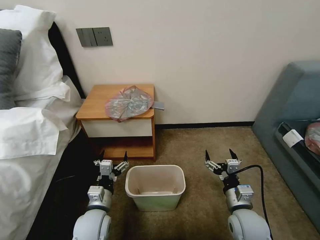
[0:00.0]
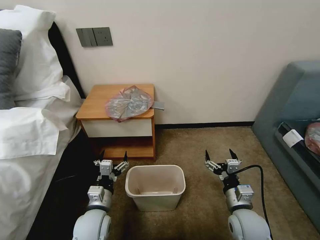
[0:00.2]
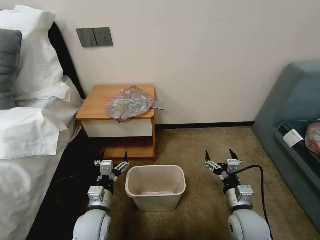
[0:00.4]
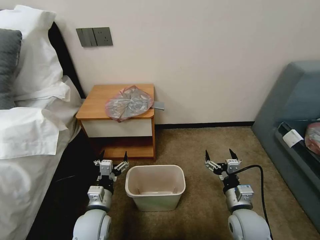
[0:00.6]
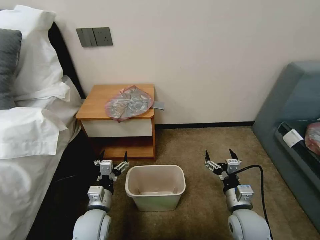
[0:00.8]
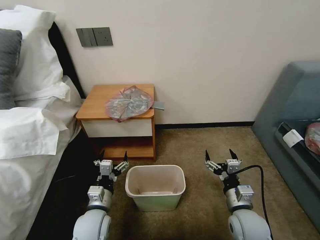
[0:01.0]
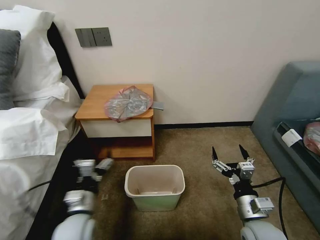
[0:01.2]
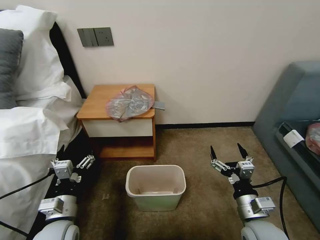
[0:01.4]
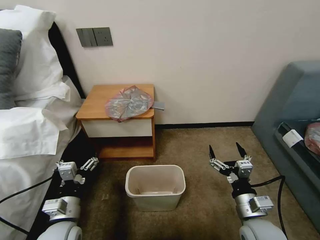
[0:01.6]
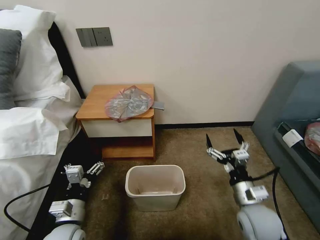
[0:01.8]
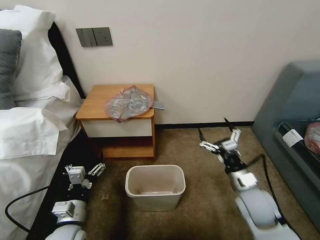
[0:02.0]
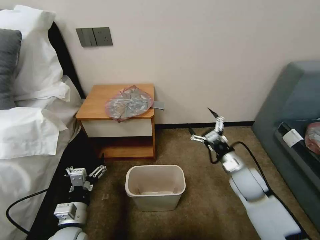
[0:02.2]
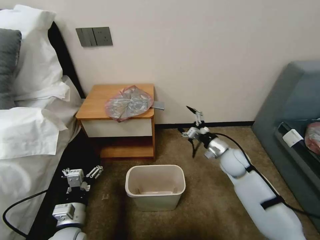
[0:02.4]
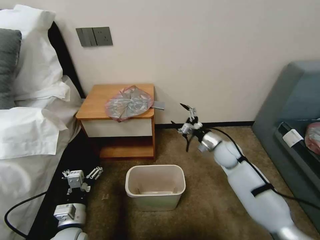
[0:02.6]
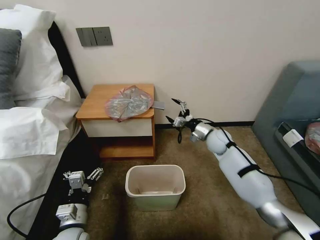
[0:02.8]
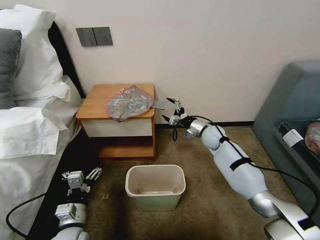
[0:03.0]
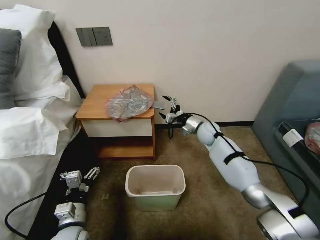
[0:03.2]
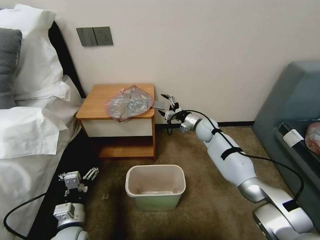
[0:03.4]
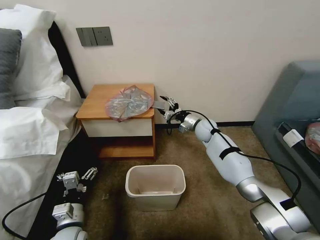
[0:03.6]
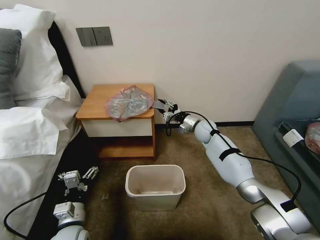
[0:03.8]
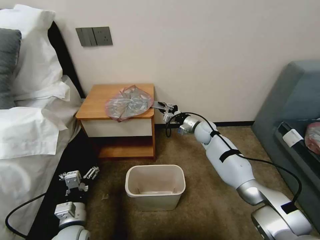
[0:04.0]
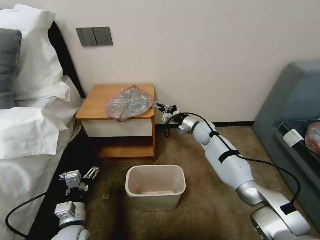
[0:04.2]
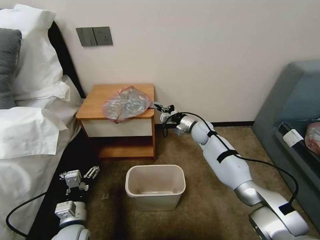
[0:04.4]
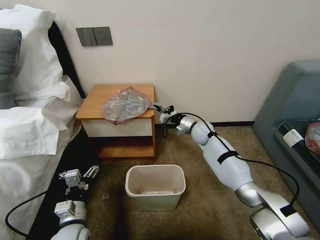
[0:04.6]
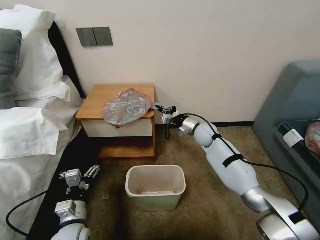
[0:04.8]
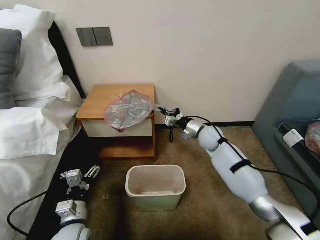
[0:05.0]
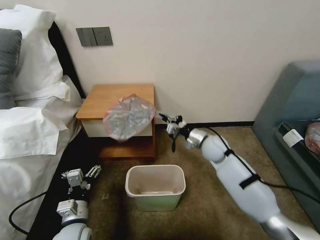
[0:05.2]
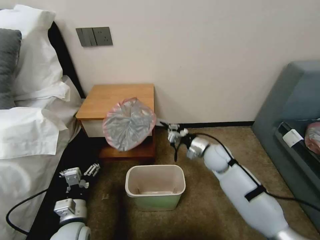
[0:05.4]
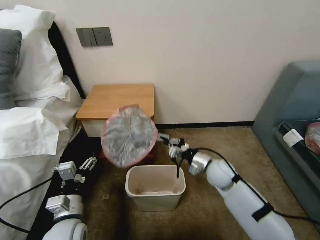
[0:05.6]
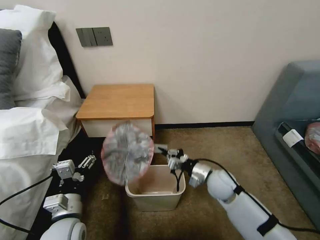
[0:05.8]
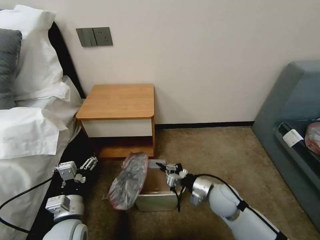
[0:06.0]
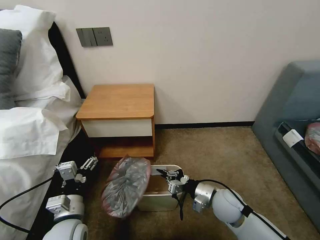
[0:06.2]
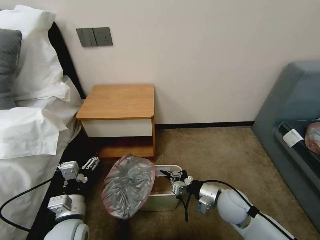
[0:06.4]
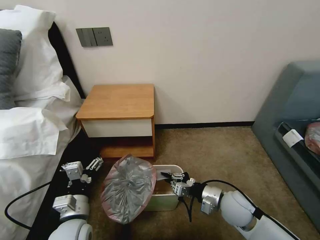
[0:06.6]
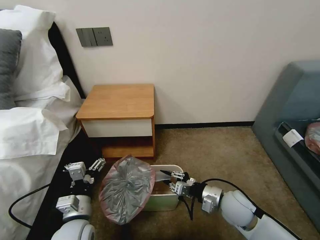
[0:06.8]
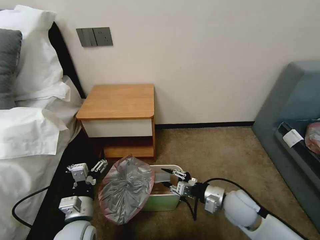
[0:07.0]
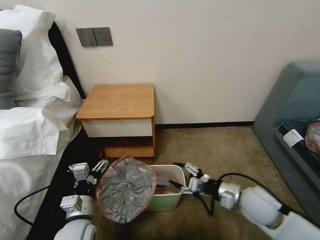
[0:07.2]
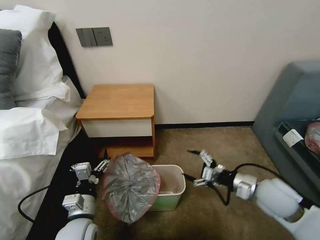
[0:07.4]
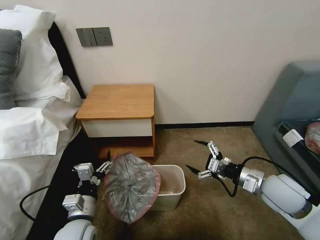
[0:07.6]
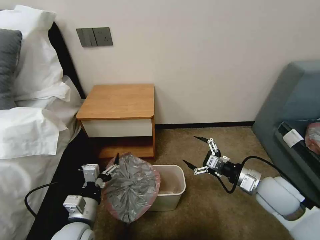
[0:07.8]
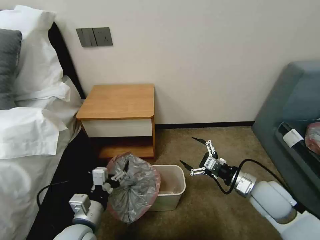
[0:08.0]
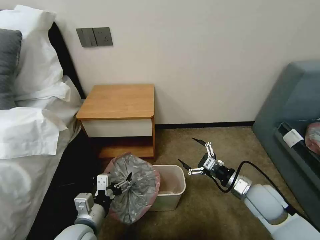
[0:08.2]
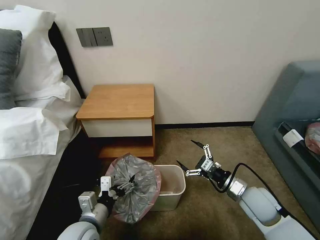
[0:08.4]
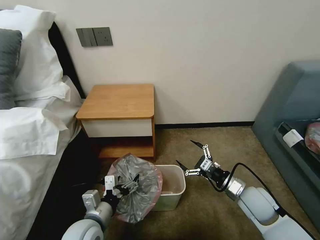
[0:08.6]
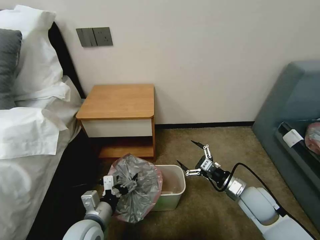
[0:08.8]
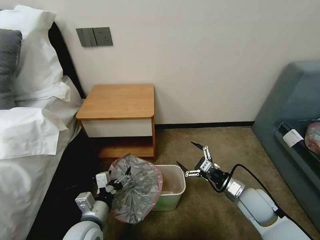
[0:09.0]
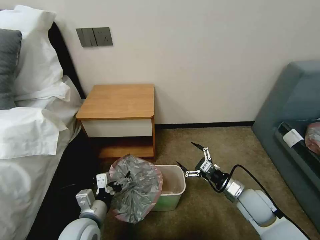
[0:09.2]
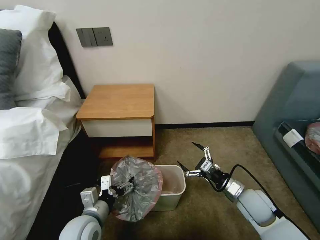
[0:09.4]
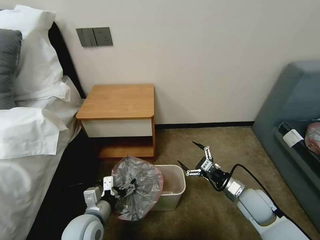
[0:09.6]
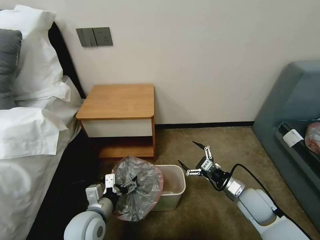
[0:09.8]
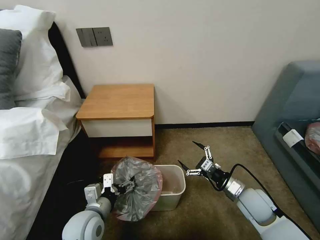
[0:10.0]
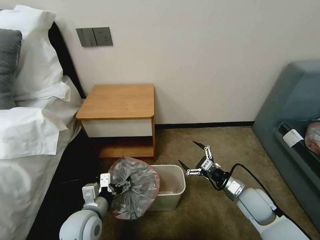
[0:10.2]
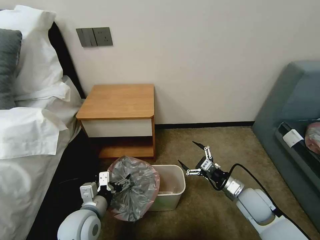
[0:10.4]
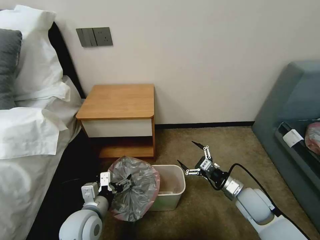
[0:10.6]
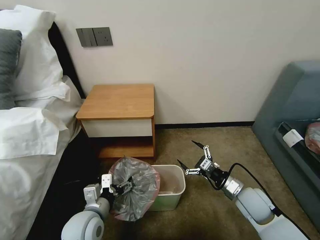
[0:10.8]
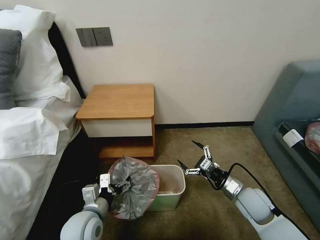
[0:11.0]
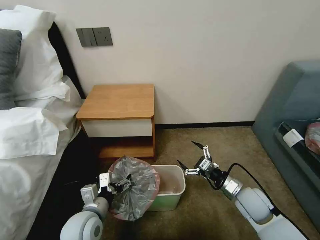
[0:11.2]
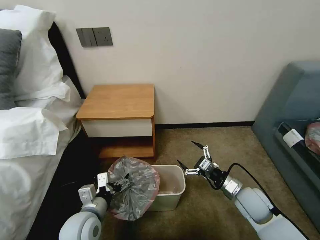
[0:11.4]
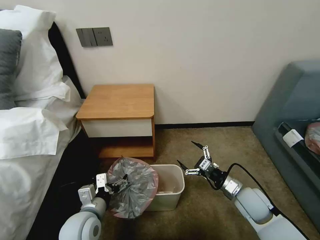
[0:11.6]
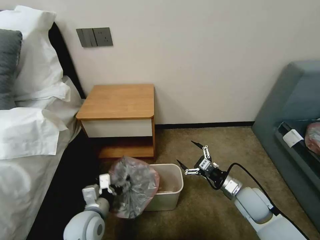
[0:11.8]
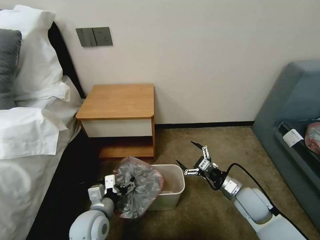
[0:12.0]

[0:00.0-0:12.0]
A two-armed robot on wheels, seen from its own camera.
Task of the whole recording: Pick up the garbage bag from the table and place it over the trash can.
0:01.6 to 0:03.0: The right gripper heads forward, covering approximately 35 cm.
0:03.0 to 0:04.4: The right gripper shifts by roughly 5 cm, and closes its fingers.
0:04.4 to 0:06.0: The right gripper is displaced backward by roughly 25 cm.
0:06.0 to 0:07.6: The right gripper is displaced to the right and upward by some 15 cm, and opens its fingers.
0:07.6 to 0:09.0: The right gripper travels downward by approximately 10 cm.
0:09.0 to 0:12.0: The grippers make only small movements.

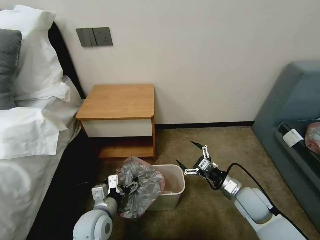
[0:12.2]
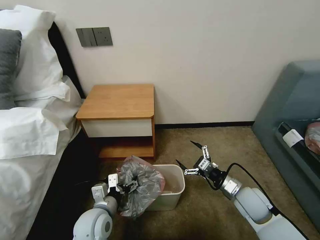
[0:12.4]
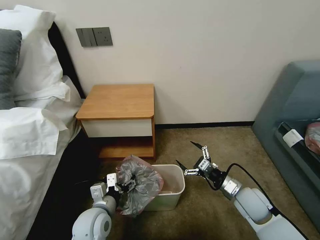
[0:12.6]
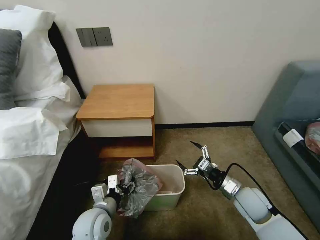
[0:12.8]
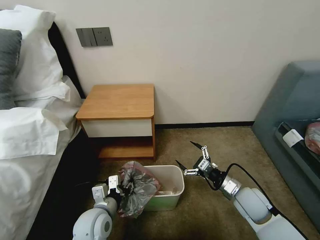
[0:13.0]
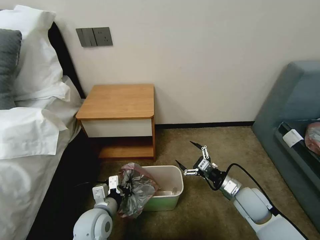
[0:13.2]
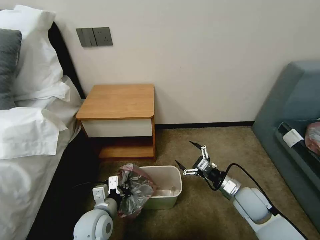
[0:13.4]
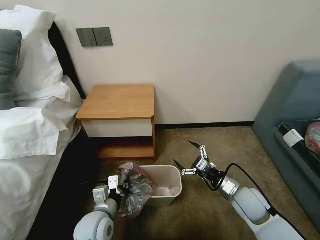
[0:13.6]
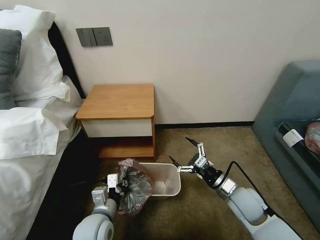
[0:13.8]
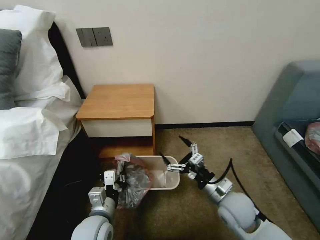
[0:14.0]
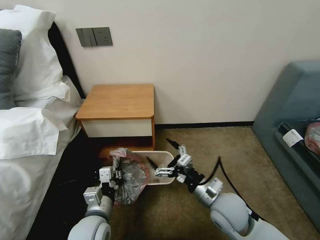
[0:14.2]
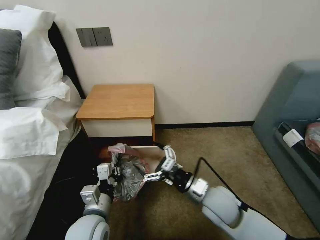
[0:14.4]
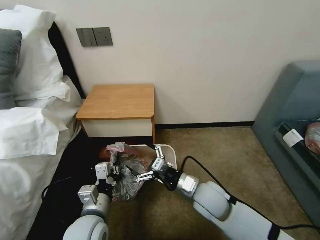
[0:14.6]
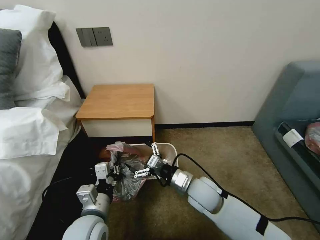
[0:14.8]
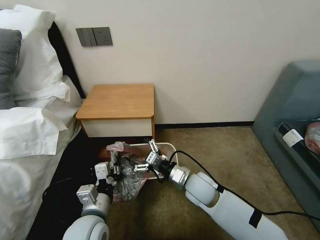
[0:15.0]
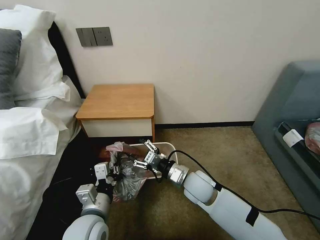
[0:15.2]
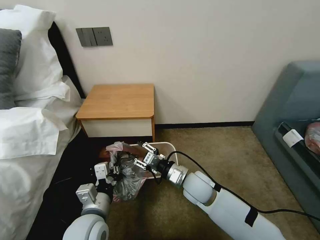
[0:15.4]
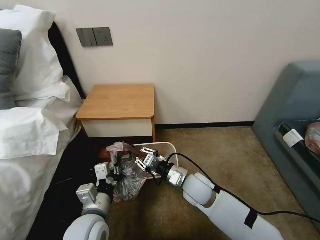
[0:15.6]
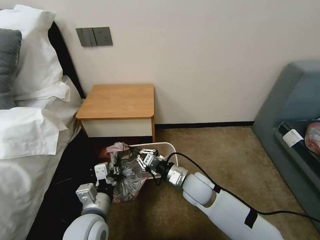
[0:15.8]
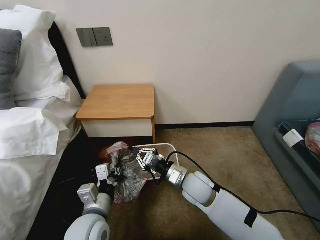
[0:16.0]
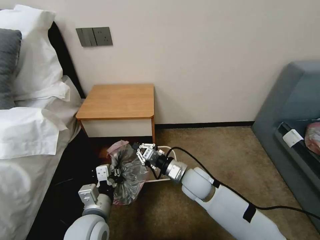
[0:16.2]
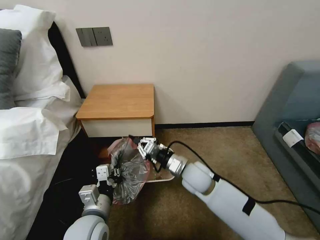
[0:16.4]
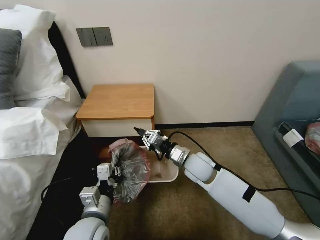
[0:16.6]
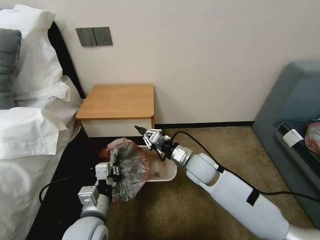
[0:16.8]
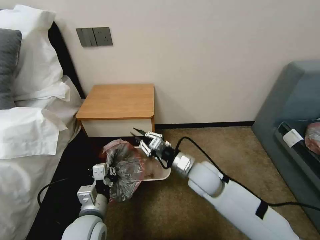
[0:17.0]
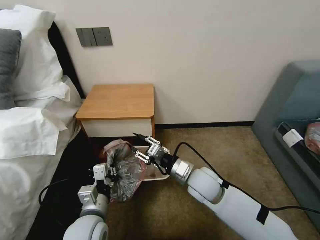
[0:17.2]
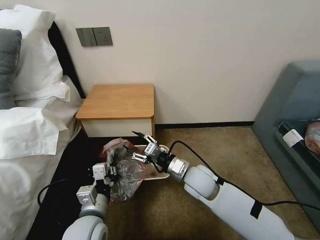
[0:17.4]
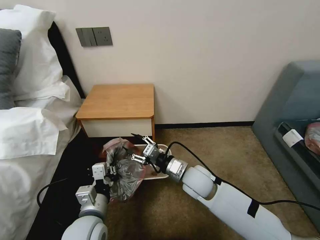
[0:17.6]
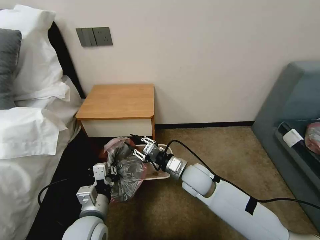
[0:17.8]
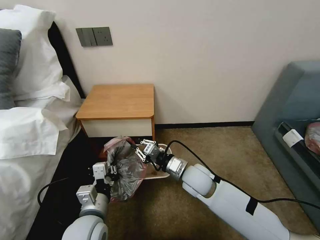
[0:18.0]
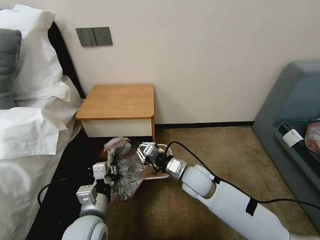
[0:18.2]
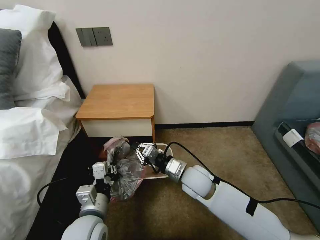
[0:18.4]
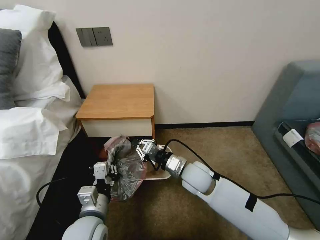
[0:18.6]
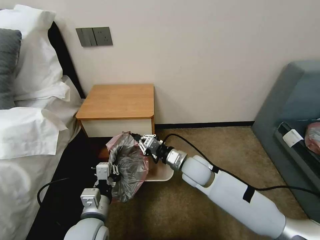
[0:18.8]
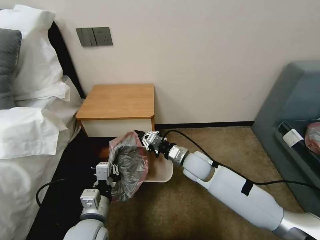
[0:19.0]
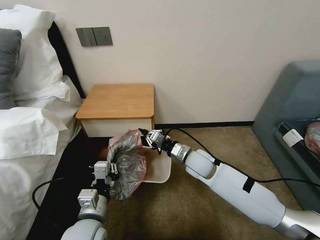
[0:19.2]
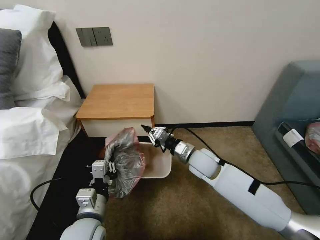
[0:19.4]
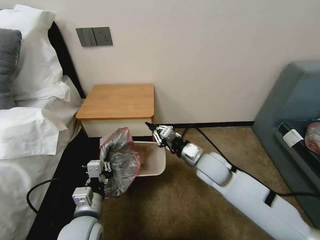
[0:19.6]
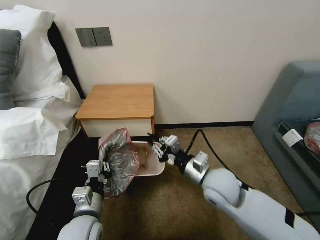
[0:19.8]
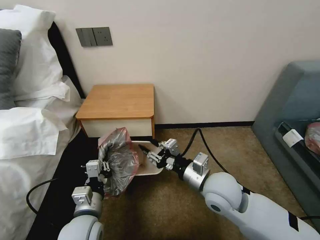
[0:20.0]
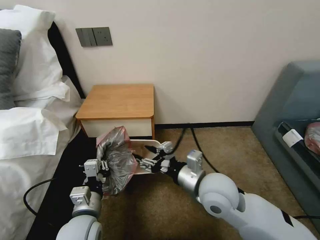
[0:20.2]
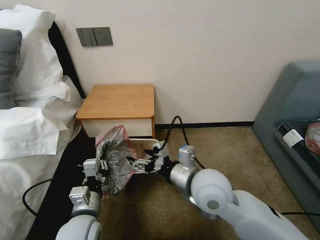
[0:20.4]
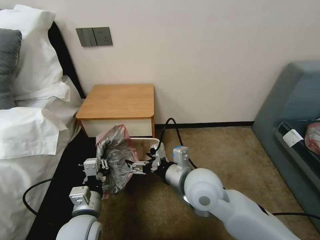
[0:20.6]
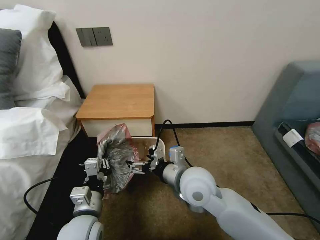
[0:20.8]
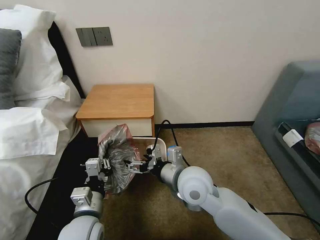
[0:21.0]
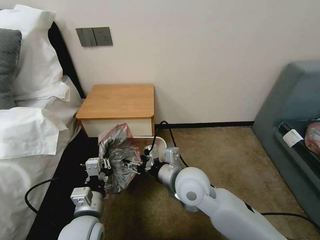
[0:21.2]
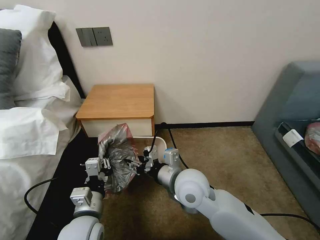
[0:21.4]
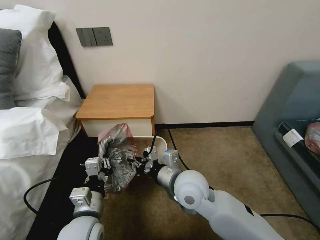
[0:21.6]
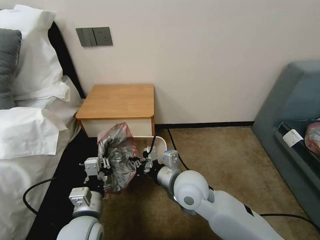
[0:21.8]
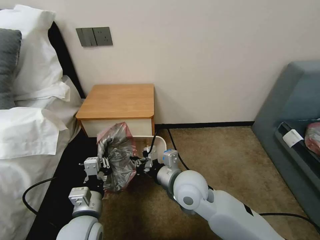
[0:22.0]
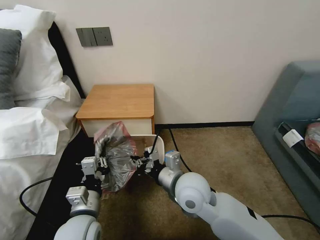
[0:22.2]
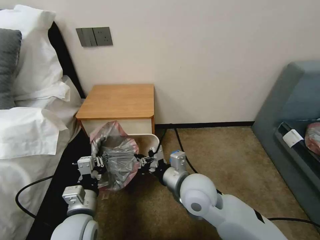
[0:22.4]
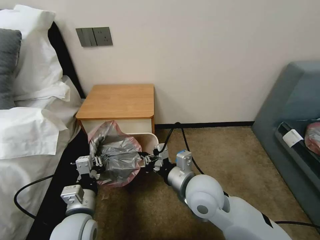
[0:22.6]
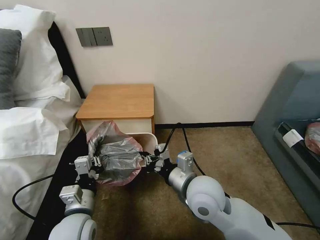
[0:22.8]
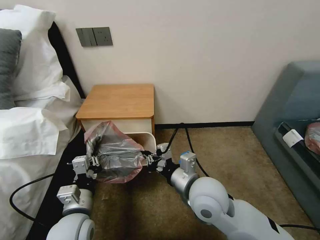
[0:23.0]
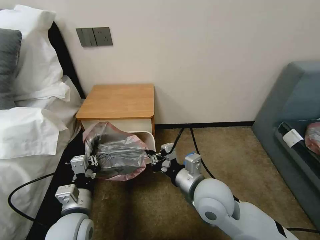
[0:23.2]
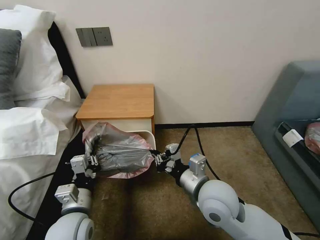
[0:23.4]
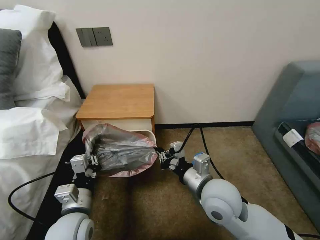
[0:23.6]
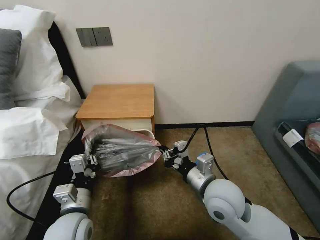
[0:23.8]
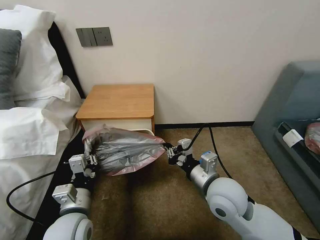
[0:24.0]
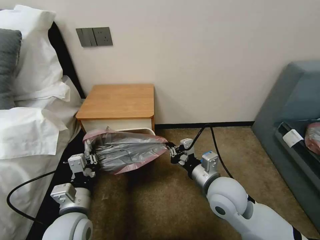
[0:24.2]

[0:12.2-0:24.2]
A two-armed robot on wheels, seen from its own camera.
Task of the whole recording: Pick up the garbage bag from the table and place it over the trash can.
0:12.2 to 0:13.8: The left gripper closes.
0:13.8 to 0:15.2: The right gripper travels to the left by about 15 cm. Meanwhile the left gripper is displaced upward by approximately 5 cm.
0:15.2 to 0:16.6: The right gripper is displaced forward by about 5 cm, and closes.
0:16.6 to 0:18.2: The right gripper opens, then closes once more.
0:18.2 to 0:19.8: The right gripper is displaced upward by about 5 cm.
0:19.8 to 0:21.2: The right gripper goes roughly 10 cm to the left, and opens up.
0:21.2 to 0:22.6: The right gripper closes.
0:22.6 to 0:24.2: The right gripper moves to the right, some 5 cm.
